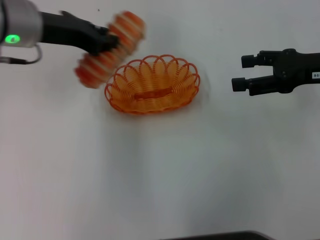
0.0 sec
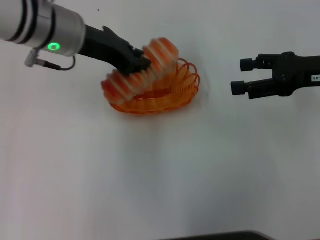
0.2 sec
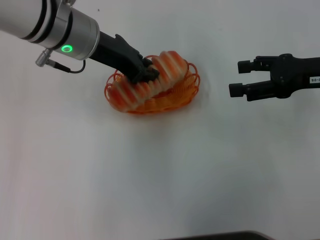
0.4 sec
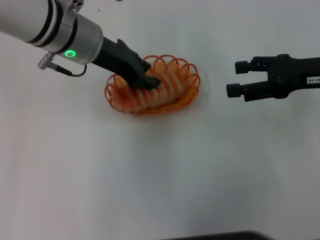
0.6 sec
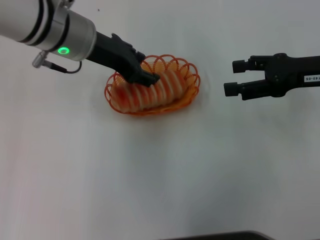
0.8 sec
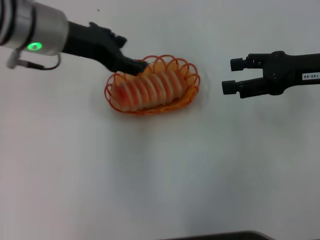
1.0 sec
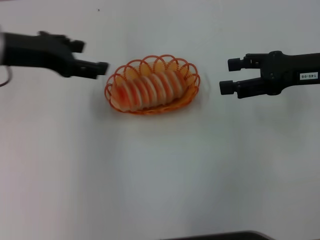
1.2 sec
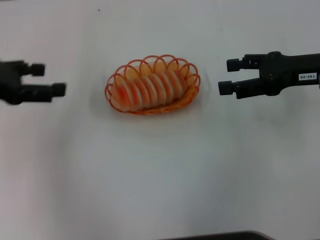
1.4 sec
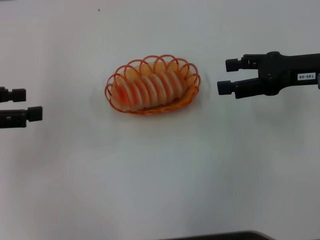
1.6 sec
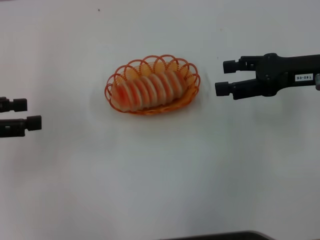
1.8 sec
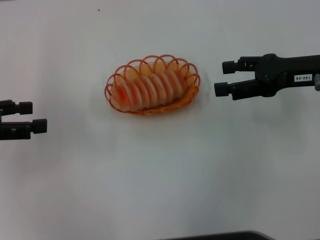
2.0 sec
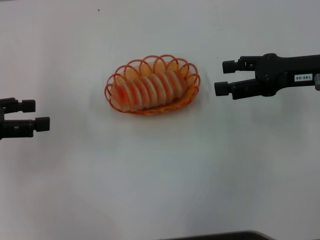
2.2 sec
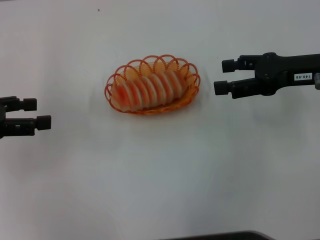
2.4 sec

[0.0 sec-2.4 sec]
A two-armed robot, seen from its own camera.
Step, 0.0 sec to 1.0 sec: Place the long bread into the basket with the left gripper.
0.0 sec to 1.2 sec: The left gripper changes place by about 5 cm, and opens its fingers.
1.2 sec to 2.4 sec: The left gripper is displaced to the left and backward by some 15 cm.

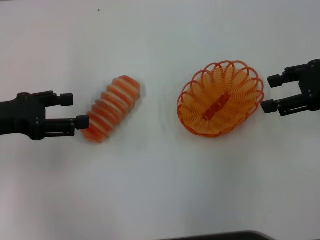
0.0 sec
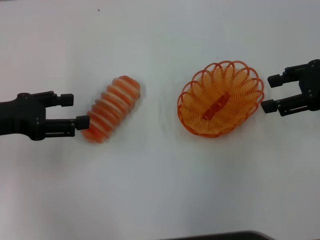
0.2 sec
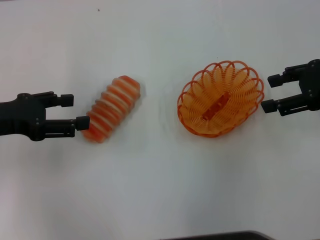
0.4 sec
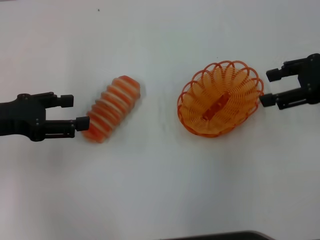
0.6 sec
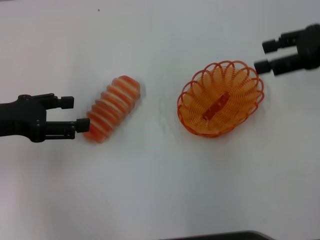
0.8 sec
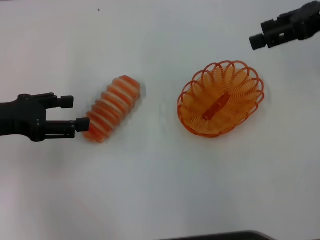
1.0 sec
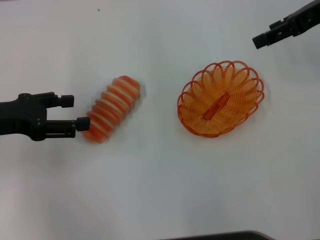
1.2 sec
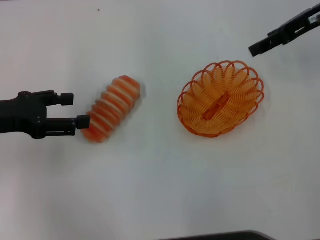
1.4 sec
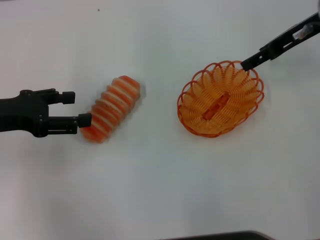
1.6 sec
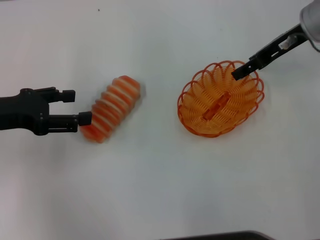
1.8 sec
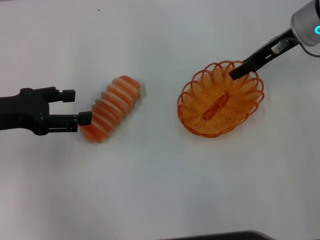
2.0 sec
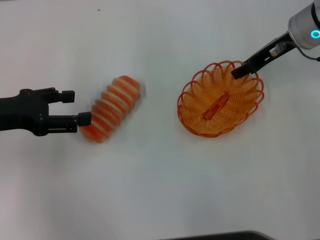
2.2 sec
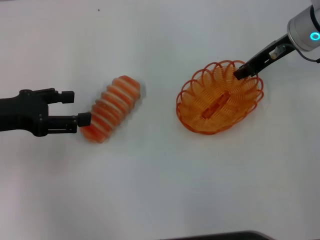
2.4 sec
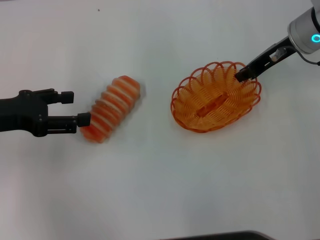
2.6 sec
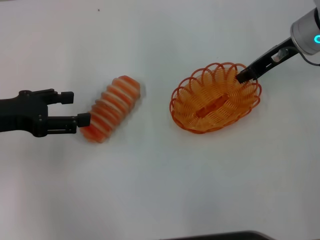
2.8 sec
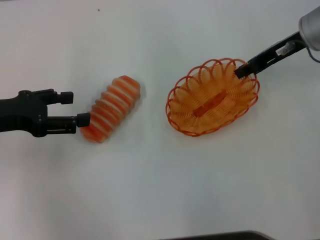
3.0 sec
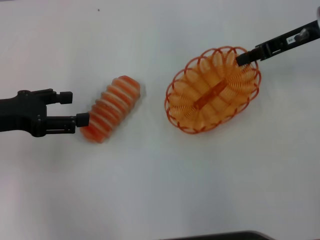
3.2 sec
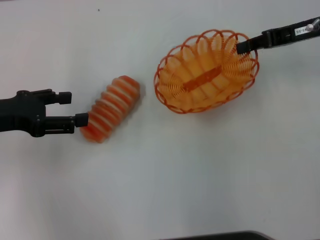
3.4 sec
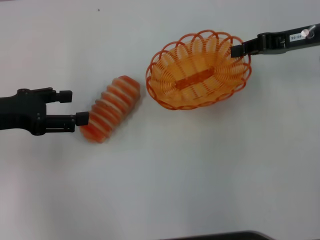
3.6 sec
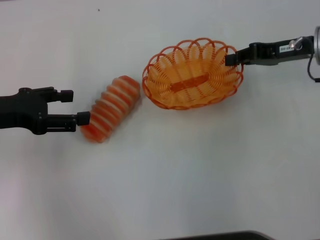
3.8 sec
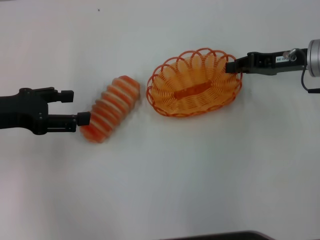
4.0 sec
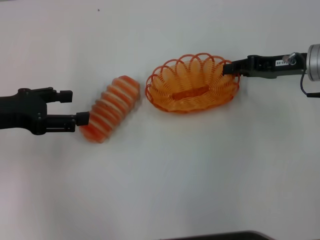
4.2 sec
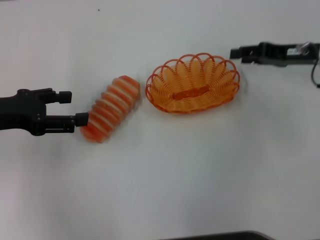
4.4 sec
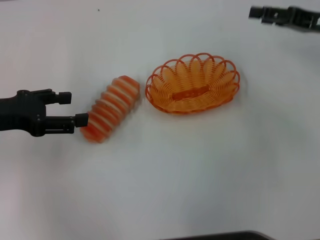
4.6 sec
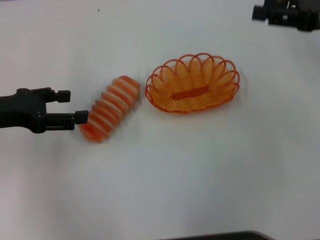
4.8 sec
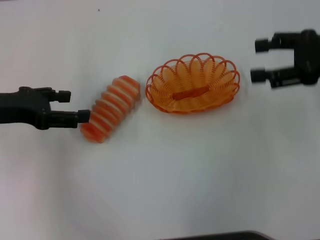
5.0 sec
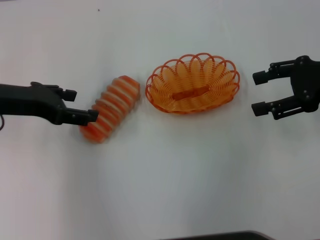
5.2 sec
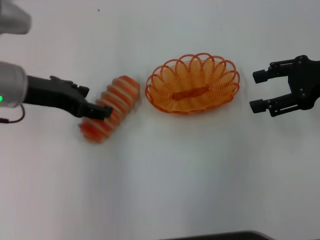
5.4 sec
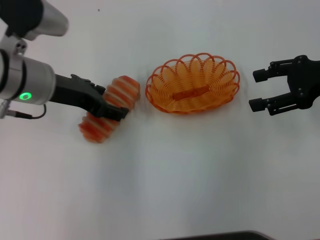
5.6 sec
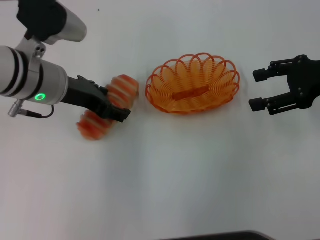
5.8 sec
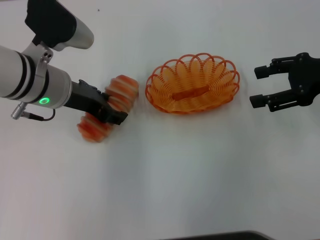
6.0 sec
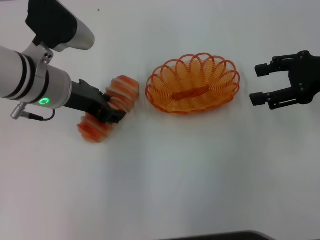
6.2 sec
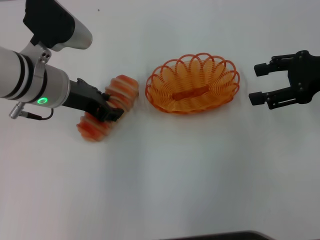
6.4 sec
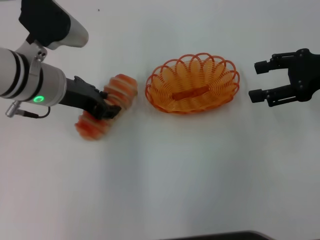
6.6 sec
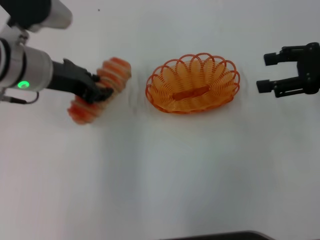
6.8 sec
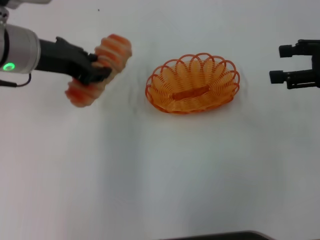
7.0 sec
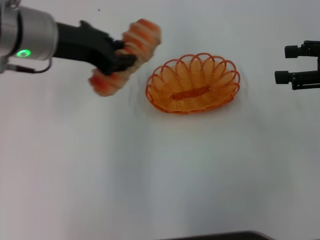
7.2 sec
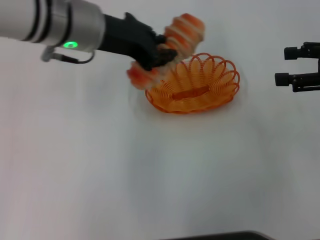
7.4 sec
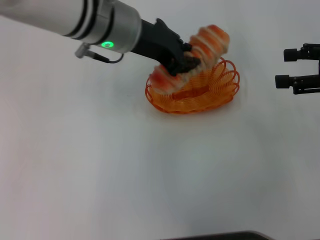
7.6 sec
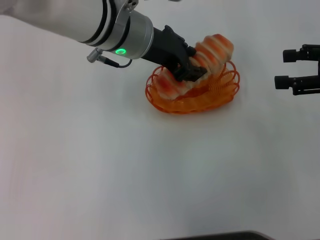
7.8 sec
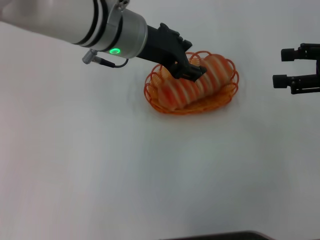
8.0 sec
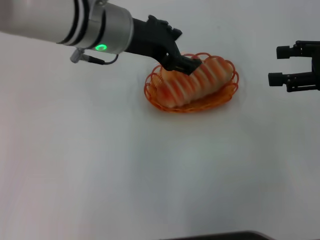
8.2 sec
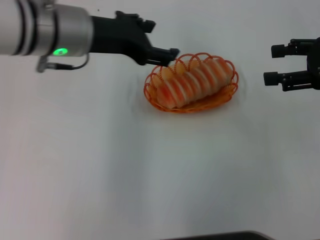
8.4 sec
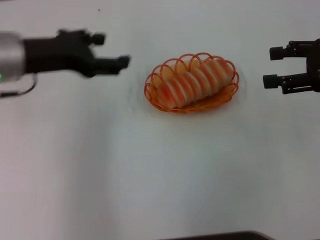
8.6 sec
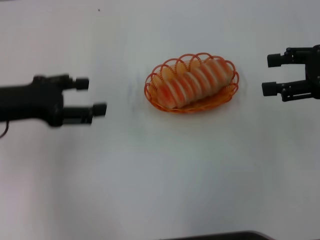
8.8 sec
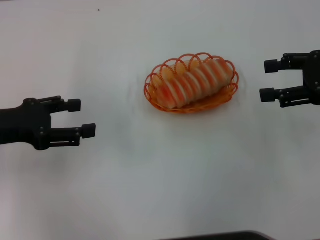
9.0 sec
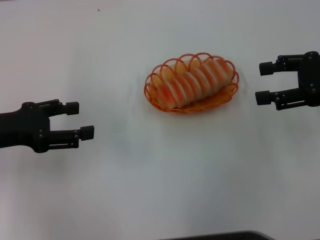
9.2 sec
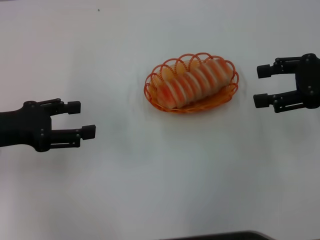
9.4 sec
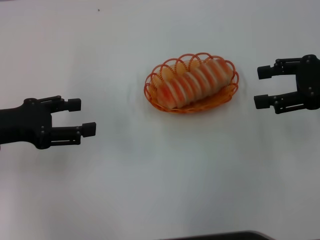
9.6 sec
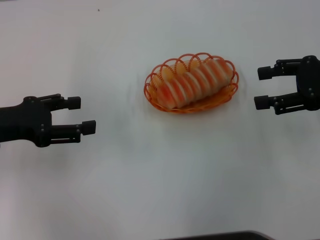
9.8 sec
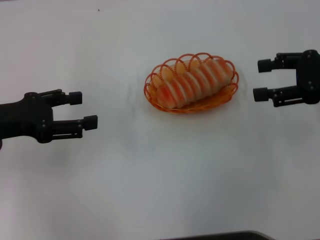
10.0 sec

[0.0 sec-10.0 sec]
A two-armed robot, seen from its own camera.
Step, 0.0 sec to 3.2 sec: Pick up the basket with the right gripper.
Step, 3.4 sec to 4.4 sec: Place the basket in the center of view with the right gripper.
Step, 4.6 sec to 6.6 sec: Pick up the long bread with the left gripper.
Step, 7.0 sec to 8.4 sec: Place the long bread into the basket with the left gripper.
0.0 sec to 1.4 sec: The right gripper moves forward, some 10 cm.
1.4 sec to 2.8 sec: The right gripper travels downward by some 5 cm, and closes.
2.8 sec to 4.2 sec: The right gripper moves downward, some 5 cm.
4.2 sec to 5.8 sec: The left gripper goes roughly 15 cm to the right, while the right gripper moves upward and backward, about 10 cm, and opens up.
5.8 sec to 7.2 sec: The left gripper goes approximately 5 cm upward, and closes.
7.2 sec to 8.6 sec: The left gripper travels to the left by some 5 cm, and opens up.
8.6 sec to 10.0 sec: The left gripper moves to the left and backward, roughly 10 cm.

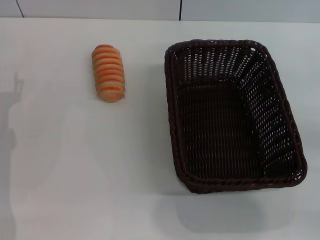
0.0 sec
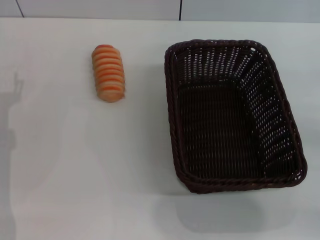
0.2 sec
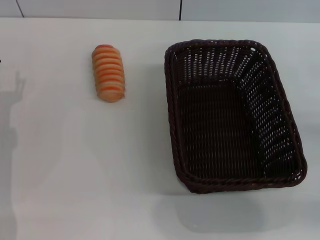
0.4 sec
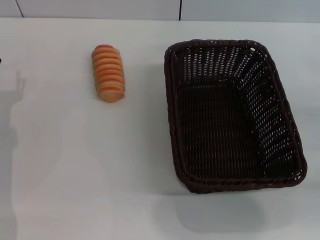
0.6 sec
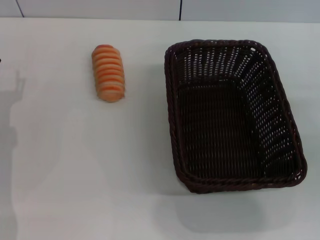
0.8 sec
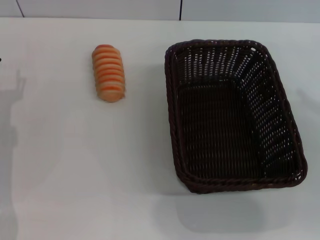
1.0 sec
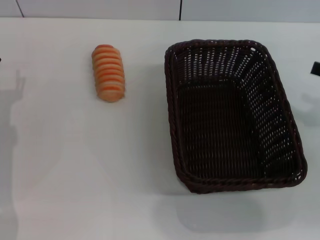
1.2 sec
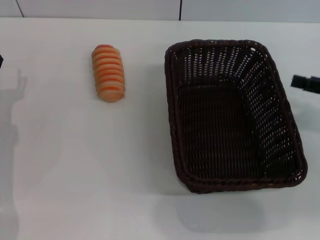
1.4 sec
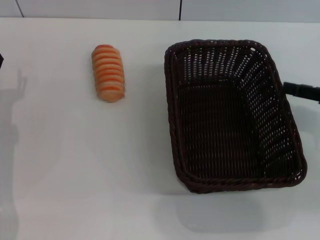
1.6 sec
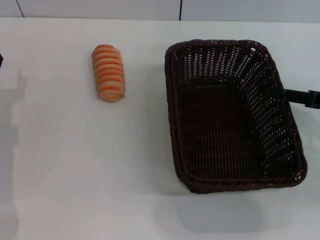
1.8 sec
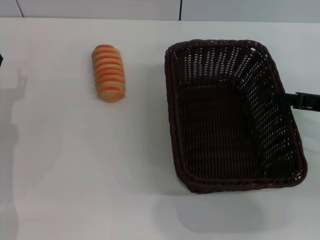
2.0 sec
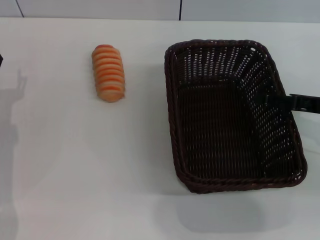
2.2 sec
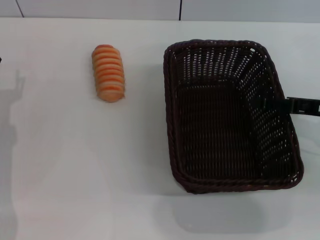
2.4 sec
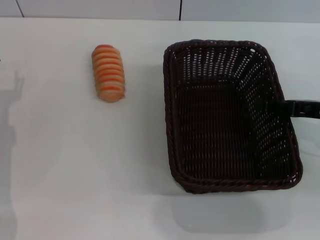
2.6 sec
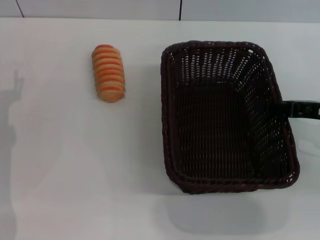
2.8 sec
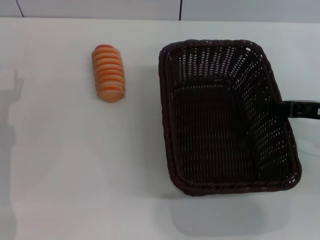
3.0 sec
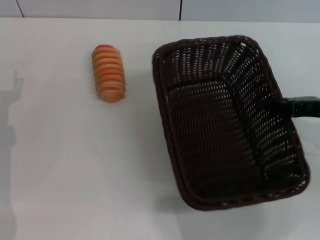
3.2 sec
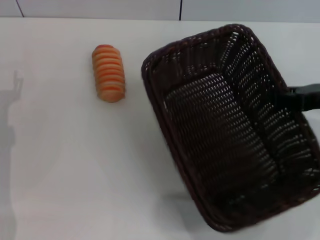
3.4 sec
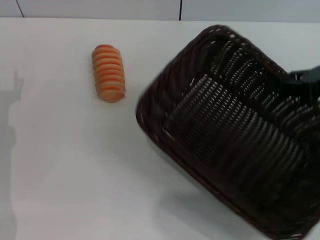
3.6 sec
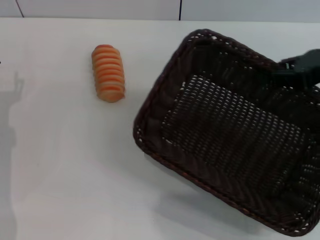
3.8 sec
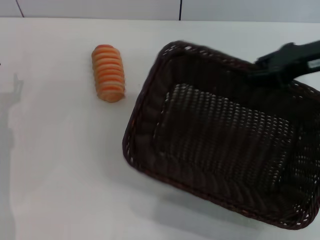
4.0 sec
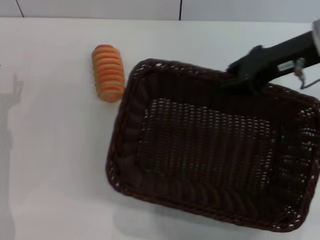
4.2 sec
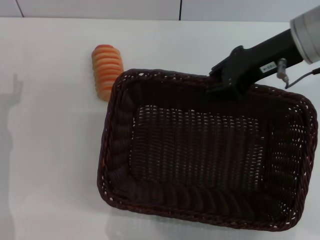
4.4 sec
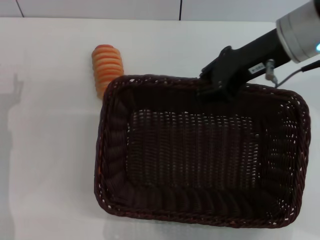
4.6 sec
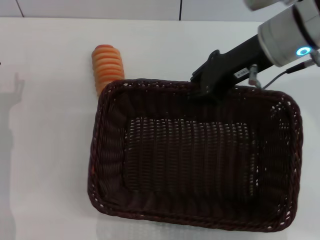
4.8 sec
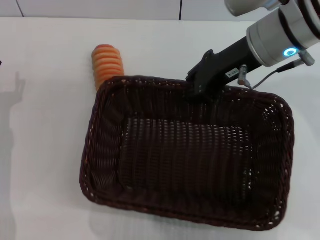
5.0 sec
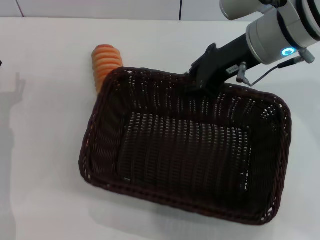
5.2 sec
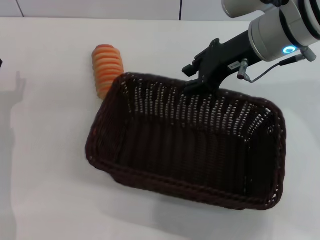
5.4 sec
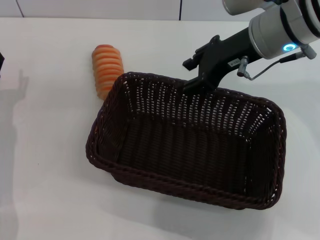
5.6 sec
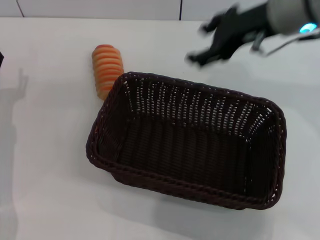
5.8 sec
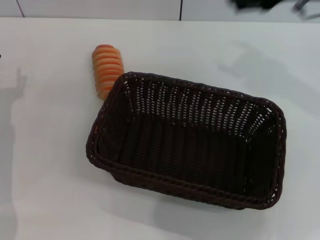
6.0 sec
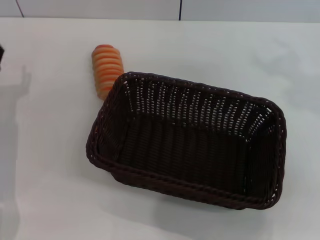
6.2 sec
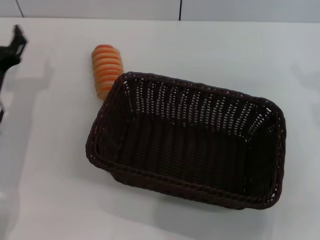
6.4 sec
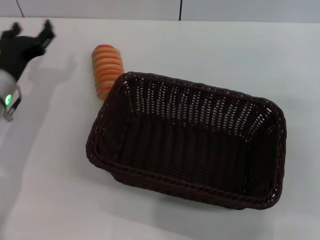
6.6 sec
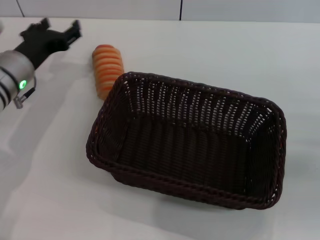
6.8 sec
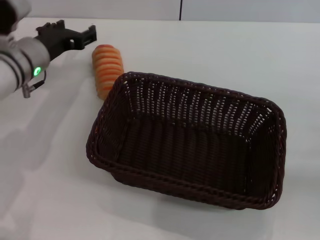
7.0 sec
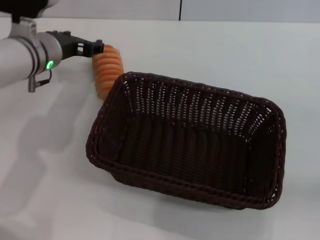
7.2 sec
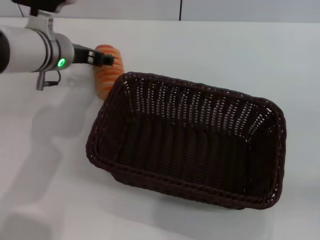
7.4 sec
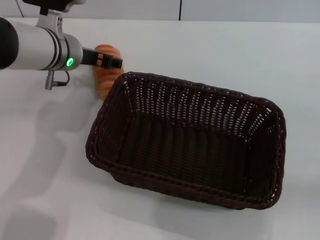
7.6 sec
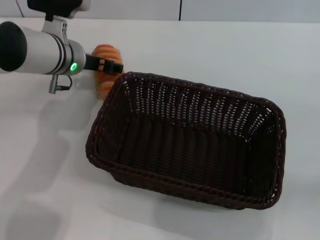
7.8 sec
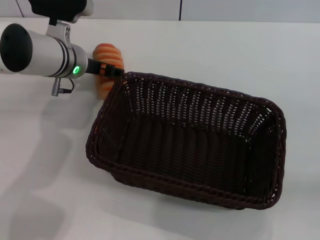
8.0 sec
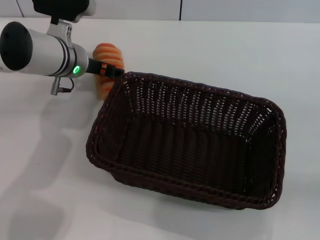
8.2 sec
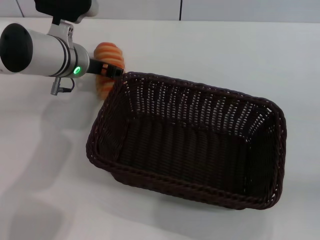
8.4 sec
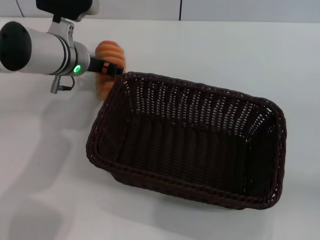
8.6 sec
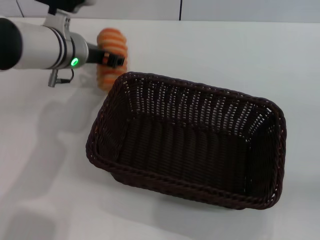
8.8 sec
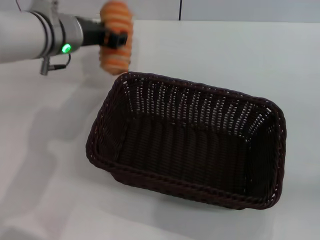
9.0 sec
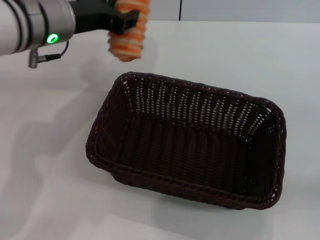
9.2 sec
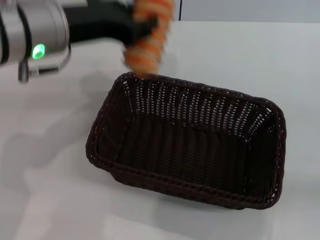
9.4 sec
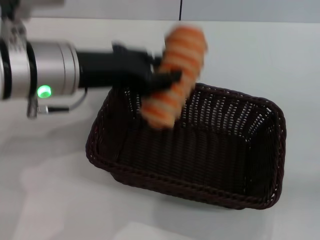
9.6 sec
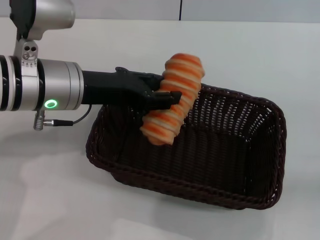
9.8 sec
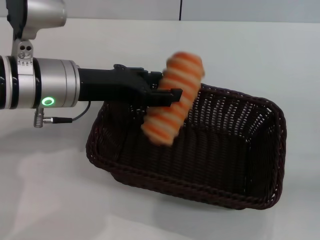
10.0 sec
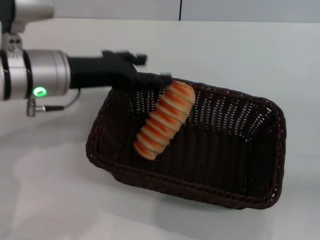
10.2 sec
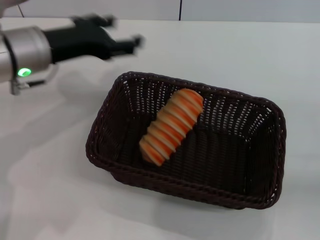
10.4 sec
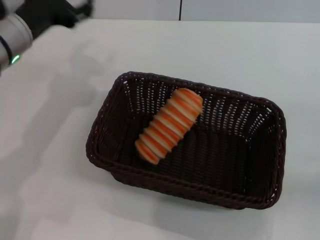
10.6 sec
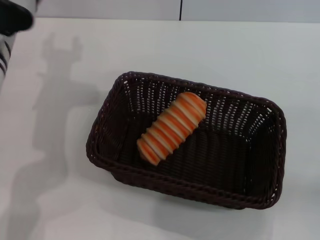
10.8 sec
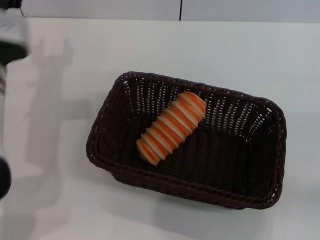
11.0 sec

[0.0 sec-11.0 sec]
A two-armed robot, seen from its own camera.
Step, 0.0 sec to 3.6 sec: Pick up the dark basket with the right gripper.
Step, 3.8 sec to 5.4 sec: Place the dark basket in the center of view with the right gripper.
Step, 5.6 sec to 8.8 sec: Pick up the long bread with the left gripper.
Step, 9.0 sec to 11.0 sec: Place the long bread into the dark basket with the left gripper.
0.0 sec to 1.6 sec: The right gripper is displaced forward, to the left and upward by about 15 cm.
1.6 sec to 3.2 sec: The right gripper closes its fingers.
3.2 sec to 4.8 sec: The right gripper goes about 20 cm to the left and upward.
4.8 sec to 6.2 sec: The right gripper is displaced to the right and backward by roughly 15 cm, and opens up.
6.2 sec to 7.8 sec: The left gripper shifts roughly 20 cm to the right, forward and upward.
7.8 sec to 9.4 sec: The left gripper moves upward and backward, about 15 cm, and closes up.
9.4 sec to 11.0 sec: The left gripper shifts approximately 15 cm downward and to the left, and opens up.
